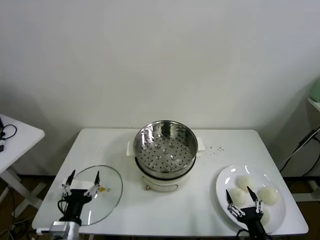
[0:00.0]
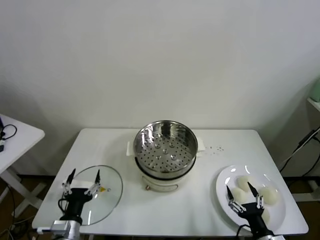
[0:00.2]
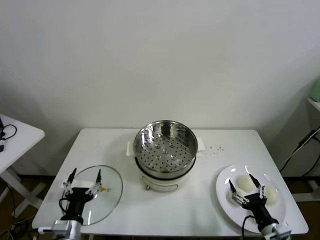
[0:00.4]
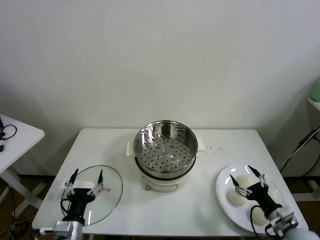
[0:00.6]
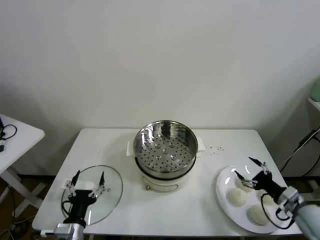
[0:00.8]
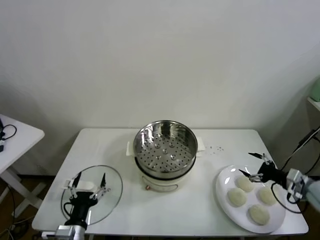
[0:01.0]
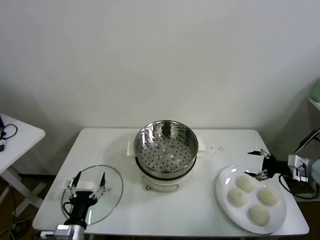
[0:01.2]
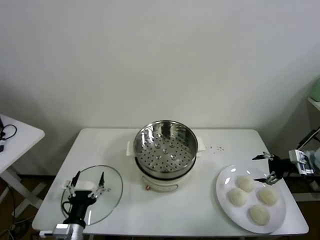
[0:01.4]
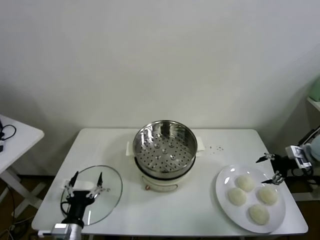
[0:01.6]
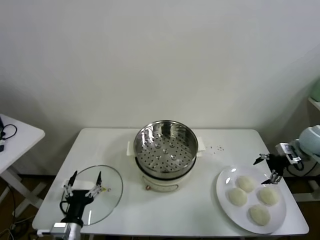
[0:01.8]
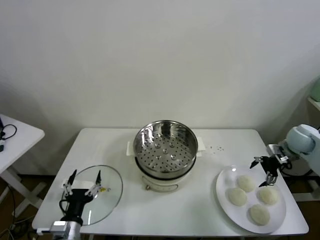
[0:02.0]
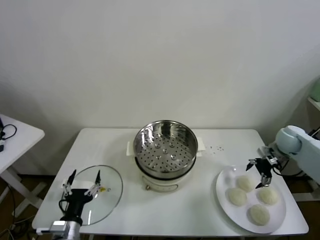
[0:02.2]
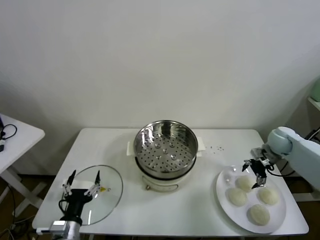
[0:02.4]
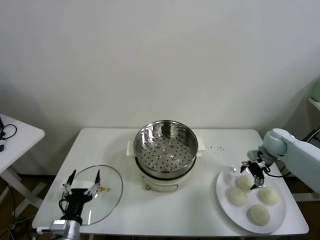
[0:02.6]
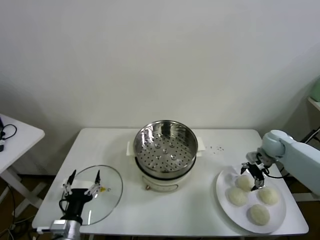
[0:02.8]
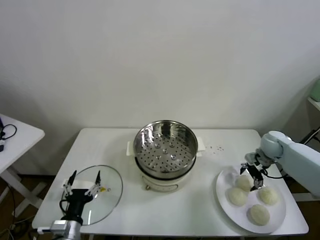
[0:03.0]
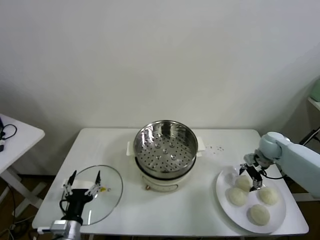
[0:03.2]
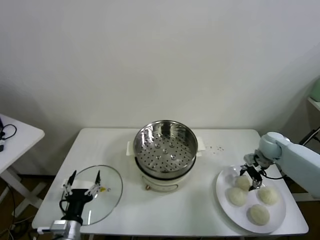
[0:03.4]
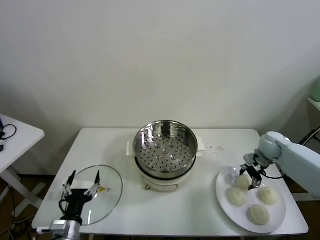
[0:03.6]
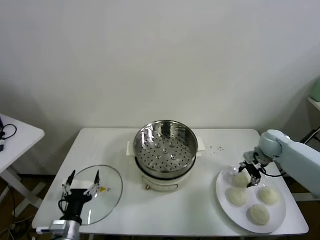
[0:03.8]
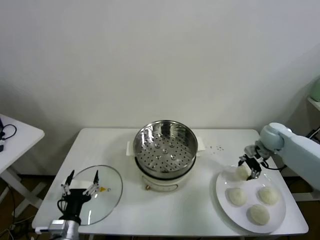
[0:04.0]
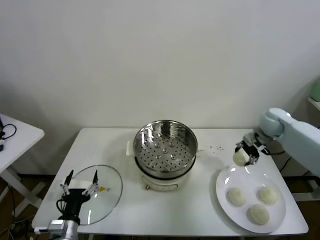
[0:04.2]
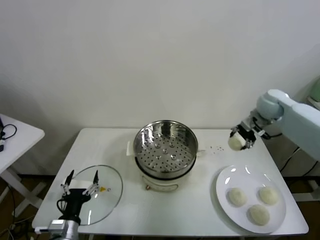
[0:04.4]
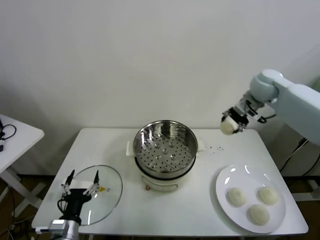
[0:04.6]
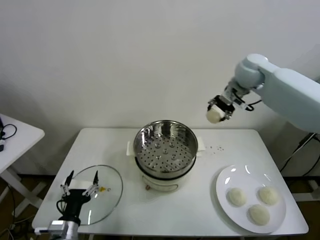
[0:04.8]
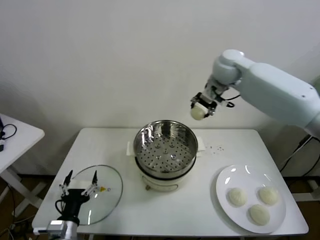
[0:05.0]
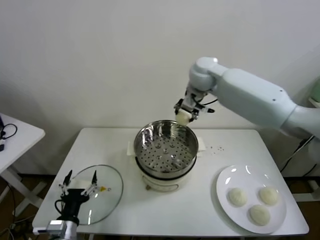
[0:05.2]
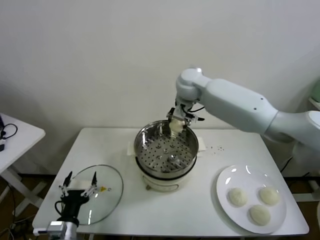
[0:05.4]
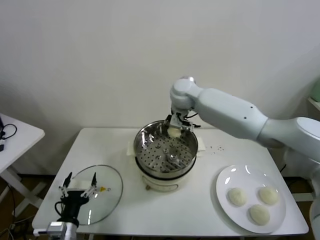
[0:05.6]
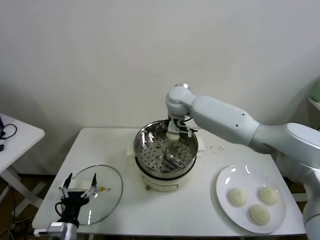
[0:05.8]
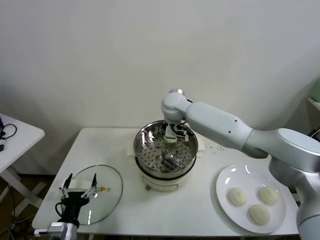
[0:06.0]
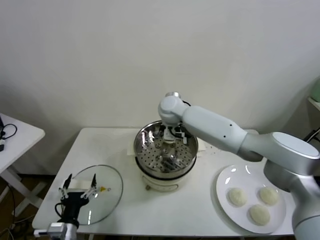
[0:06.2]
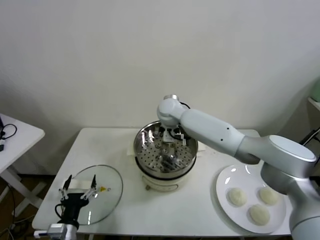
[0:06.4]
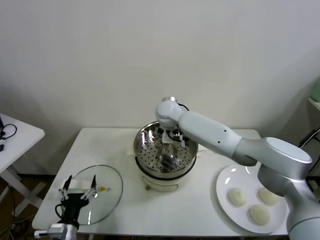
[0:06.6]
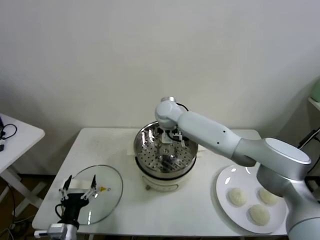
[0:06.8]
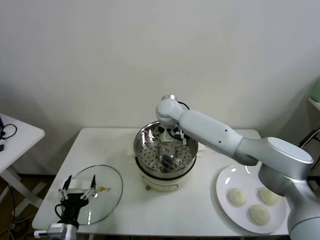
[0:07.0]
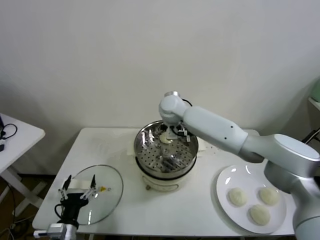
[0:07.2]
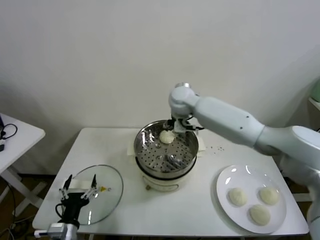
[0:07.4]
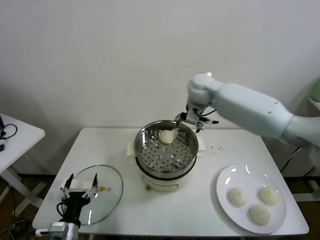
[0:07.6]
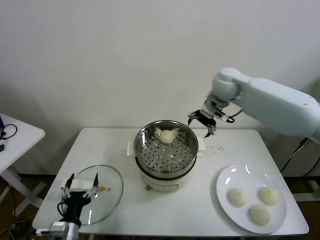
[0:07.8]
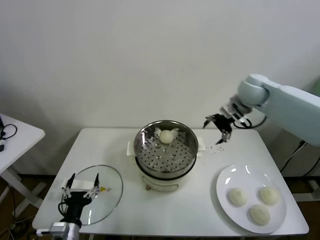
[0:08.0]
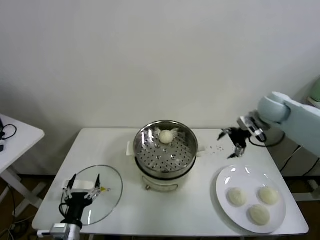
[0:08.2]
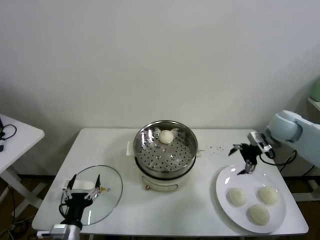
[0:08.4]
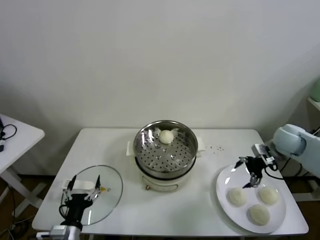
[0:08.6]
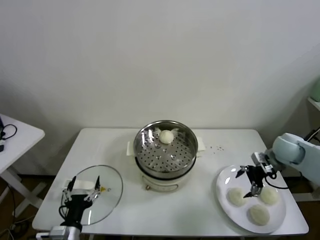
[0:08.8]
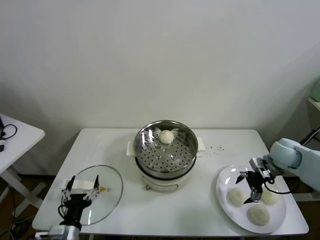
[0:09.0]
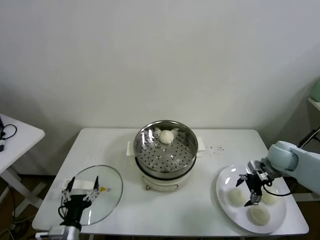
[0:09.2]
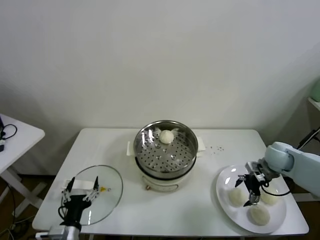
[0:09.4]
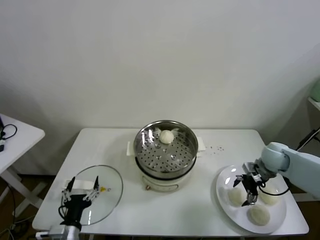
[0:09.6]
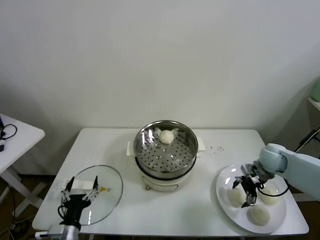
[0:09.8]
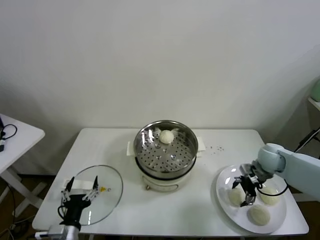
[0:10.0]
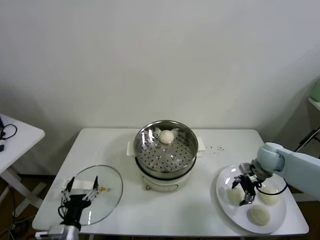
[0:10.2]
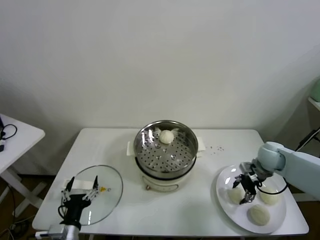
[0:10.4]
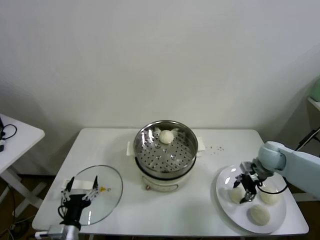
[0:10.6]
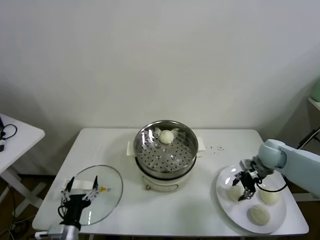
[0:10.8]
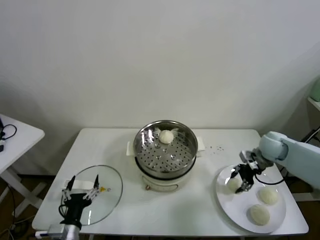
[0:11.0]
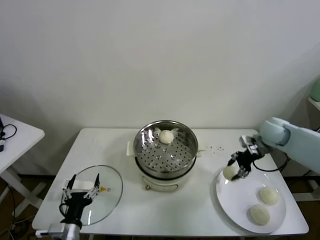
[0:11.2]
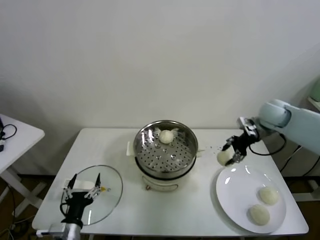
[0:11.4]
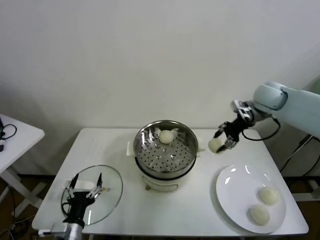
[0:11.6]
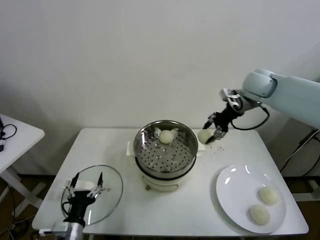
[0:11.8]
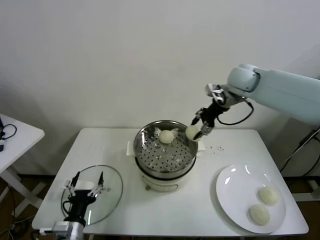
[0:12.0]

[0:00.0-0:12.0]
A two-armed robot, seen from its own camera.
Task of the whole recording: take steamed baozi put them in steamer.
Step, 0.0 to 3.2 s: Grasp the baozi in the plate with right gripper.
Step, 3.4 to 7.0 s: Place the baozi on the steamer with right gripper.
Step, 7.2 to 10.0 s: Grasp the baozi in the plate with right gripper.
1.6 to 3.0 s: The right gripper heads to the left, downward and forward, covering some 15 cm.
3.0 to 4.4 s: The right gripper heads upward, covering approximately 20 cm, and closes up.
4.4 to 6.0 s: The right gripper is displaced to the left by about 30 cm.
6.0 to 7.6 s: The right gripper travels to the right and upward by about 15 cm, and opens its fingers.
7.6 to 9.0 s: The right gripper goes some 35 cm to the right, downward and backward.
9.0 to 10.4 s: The right gripper closes.
10.4 to 12.0 s: The right gripper heads upward, to the left and forward, covering about 30 cm.

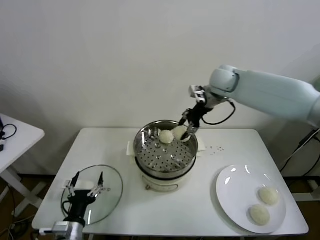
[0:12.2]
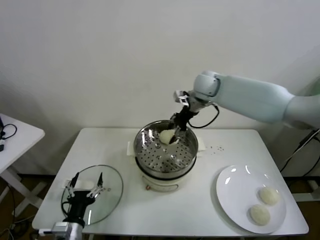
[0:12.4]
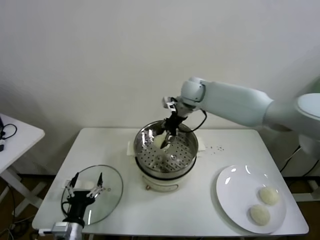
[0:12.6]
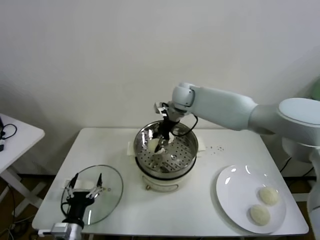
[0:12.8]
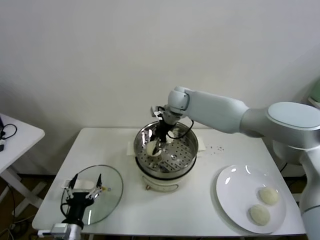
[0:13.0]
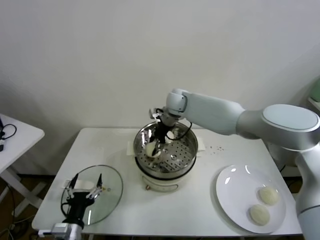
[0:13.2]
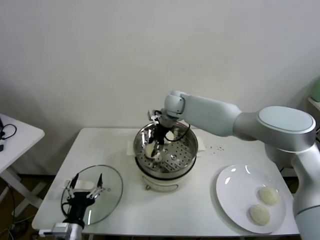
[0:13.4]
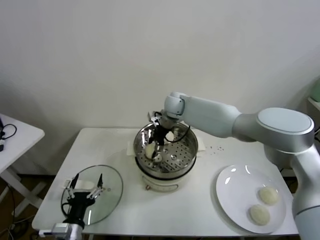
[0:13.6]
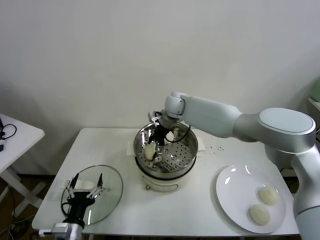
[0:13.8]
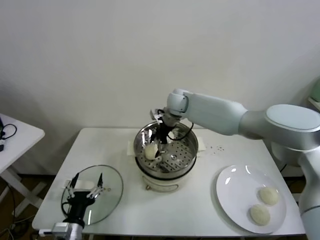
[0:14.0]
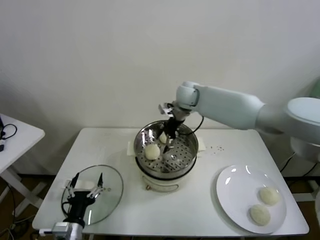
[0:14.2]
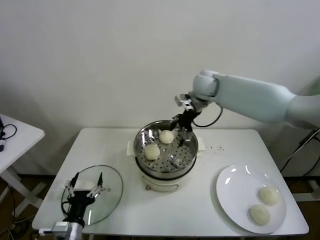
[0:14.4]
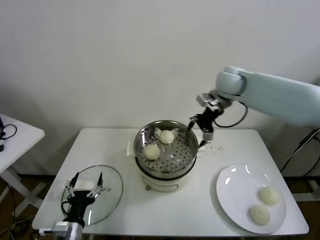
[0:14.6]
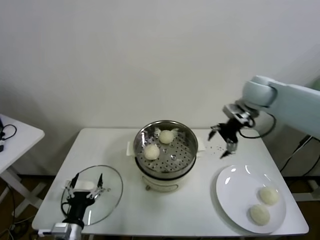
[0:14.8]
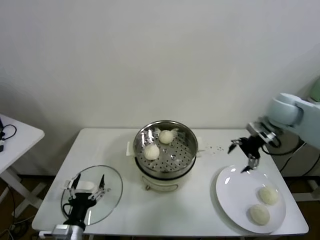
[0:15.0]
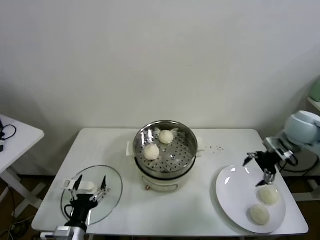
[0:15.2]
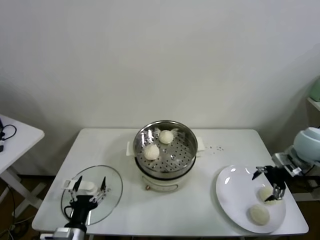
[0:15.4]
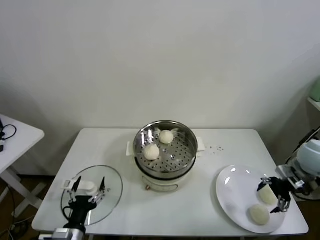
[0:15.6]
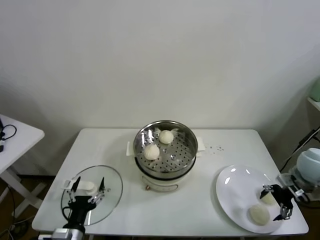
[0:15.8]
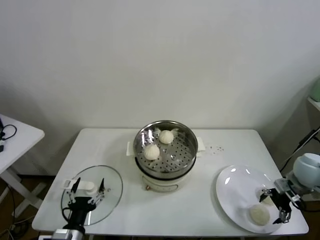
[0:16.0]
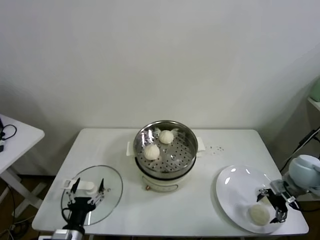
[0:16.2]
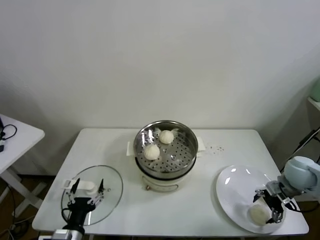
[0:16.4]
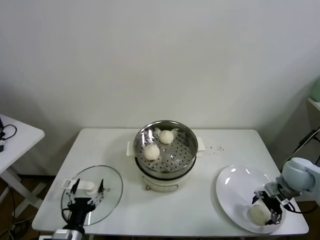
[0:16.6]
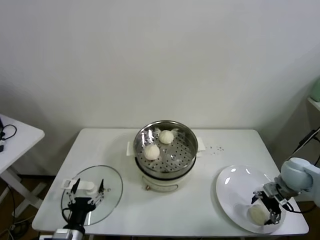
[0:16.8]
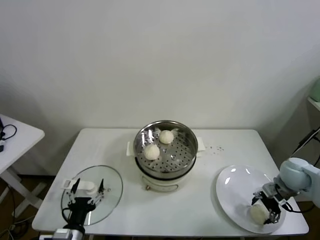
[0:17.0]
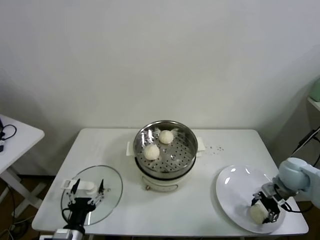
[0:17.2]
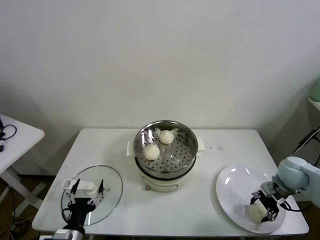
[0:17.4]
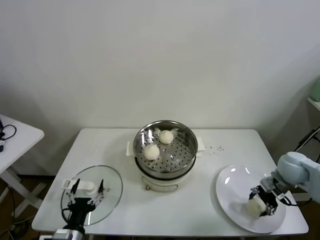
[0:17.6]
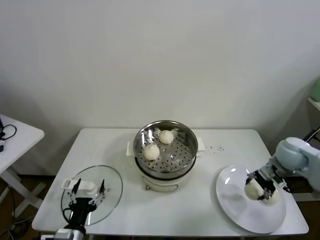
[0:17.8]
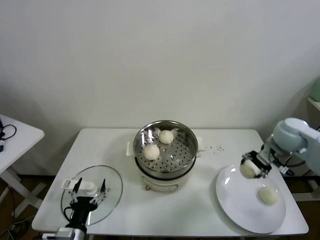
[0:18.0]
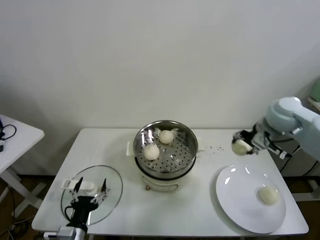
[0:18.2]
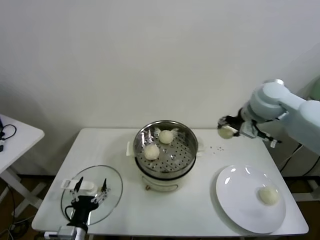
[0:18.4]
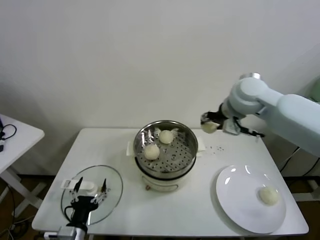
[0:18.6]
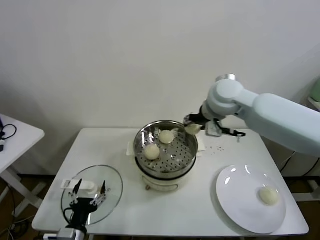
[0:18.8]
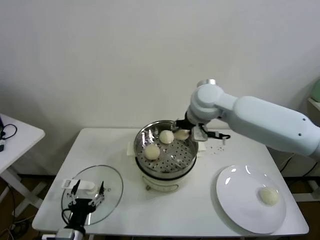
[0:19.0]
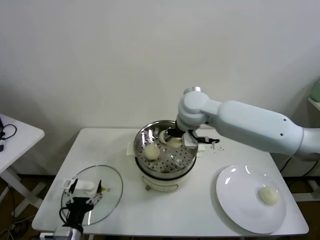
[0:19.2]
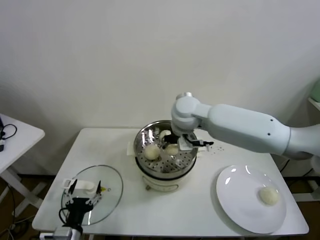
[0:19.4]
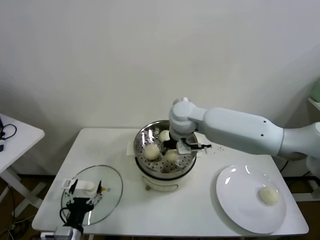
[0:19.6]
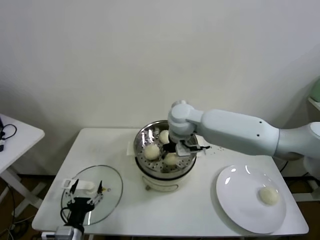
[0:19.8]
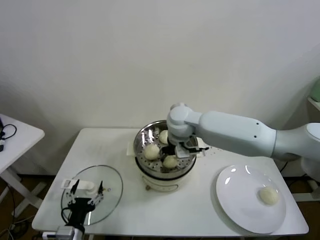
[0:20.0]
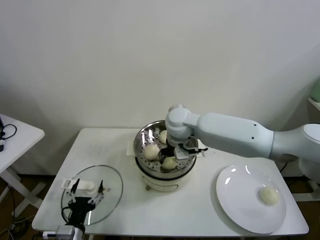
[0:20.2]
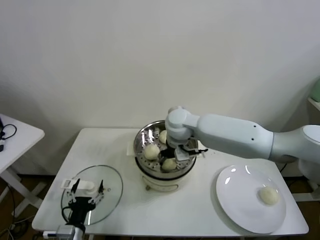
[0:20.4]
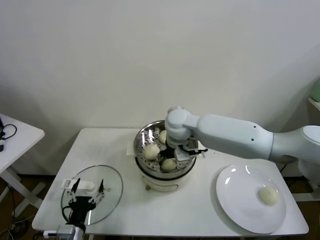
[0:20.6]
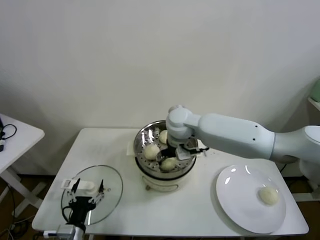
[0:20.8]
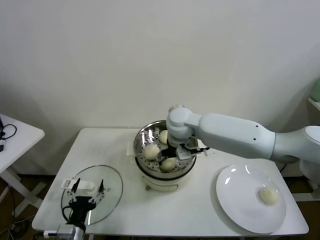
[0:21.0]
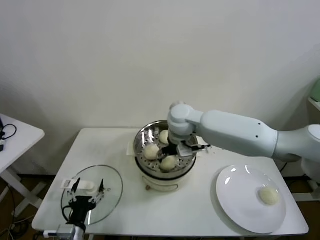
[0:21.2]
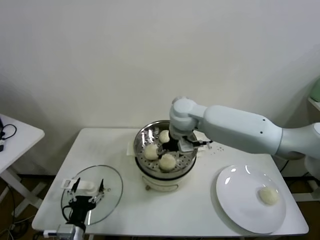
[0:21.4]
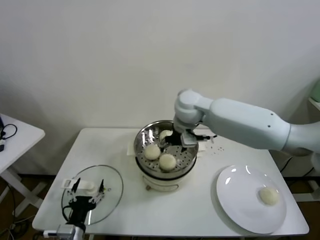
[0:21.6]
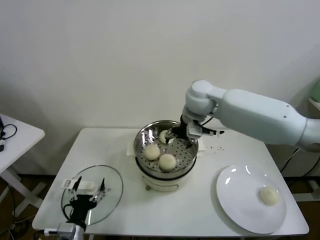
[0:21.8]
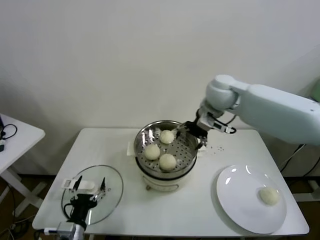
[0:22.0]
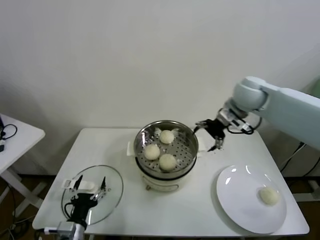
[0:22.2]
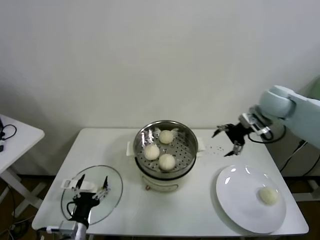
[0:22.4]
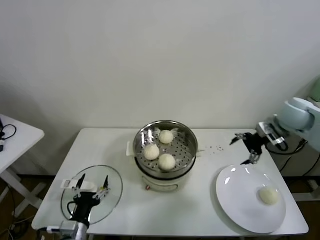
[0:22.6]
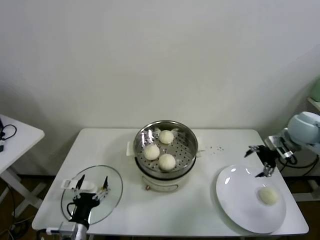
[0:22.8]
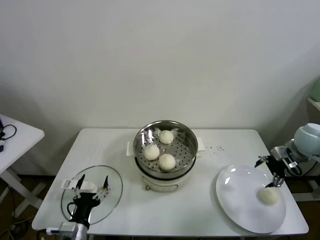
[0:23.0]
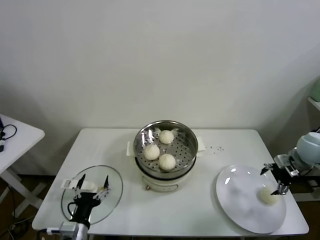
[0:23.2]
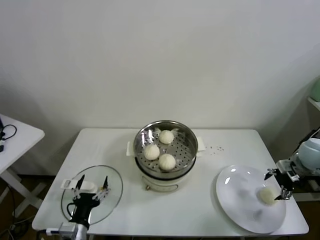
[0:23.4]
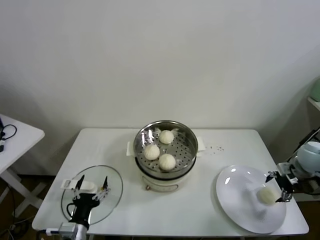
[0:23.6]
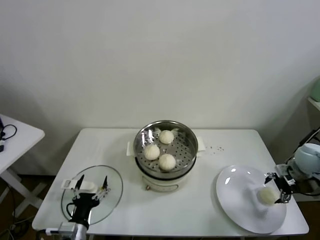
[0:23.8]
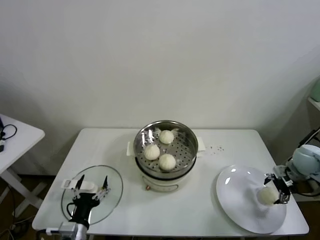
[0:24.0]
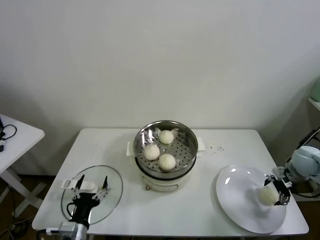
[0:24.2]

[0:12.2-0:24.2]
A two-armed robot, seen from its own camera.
Task of the whole recording: take steamed baozi put them in steamer.
Step, 14.0 to 17.0 s: Grasp the baozi in the plate with right gripper.
Step, 17.2 to 20.8 s: Place the baozi on the steamer with right gripper.
12.2 to 13.8 s: The right gripper travels to the left and downward by about 15 cm, and opens its fingers.
13.8 to 15.2 s: The right gripper moves to the right and backward, about 40 cm.
15.2 to 16.6 s: The right gripper travels downward and backward by some 15 cm.
16.6 to 18.2 s: The right gripper is displaced upward, to the left and forward by about 25 cm, and closes.
18.2 to 19.8 s: The right gripper heads to the left, covering approximately 30 cm.
19.8 to 21.2 s: The right gripper opens its fingers.
21.2 to 22.6 s: The right gripper heads to the right, covering about 35 cm.
22.6 to 24.2 s: The right gripper shifts about 20 cm downward and to the right.
